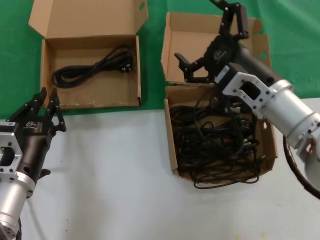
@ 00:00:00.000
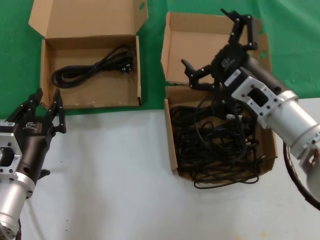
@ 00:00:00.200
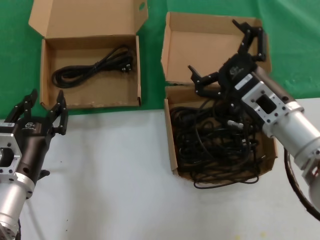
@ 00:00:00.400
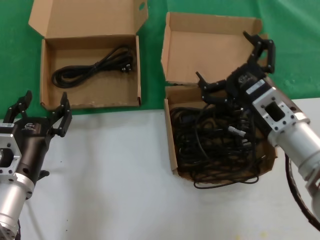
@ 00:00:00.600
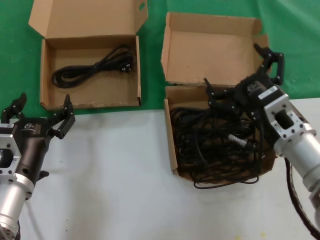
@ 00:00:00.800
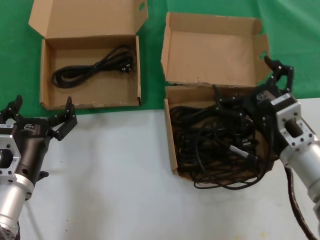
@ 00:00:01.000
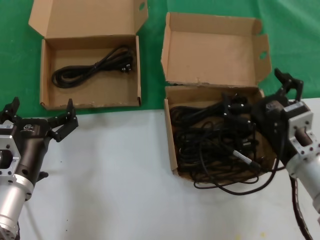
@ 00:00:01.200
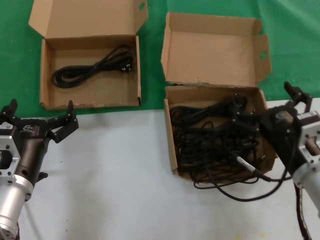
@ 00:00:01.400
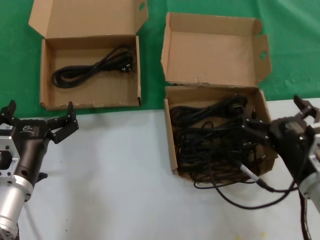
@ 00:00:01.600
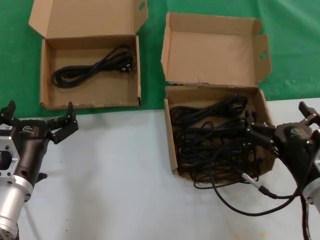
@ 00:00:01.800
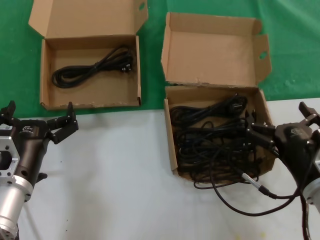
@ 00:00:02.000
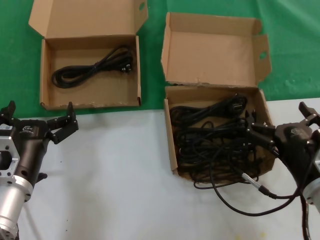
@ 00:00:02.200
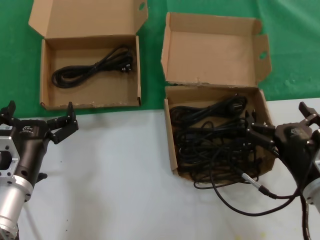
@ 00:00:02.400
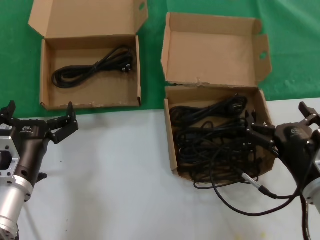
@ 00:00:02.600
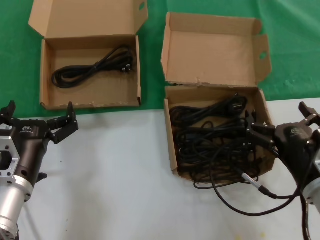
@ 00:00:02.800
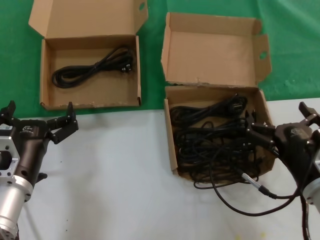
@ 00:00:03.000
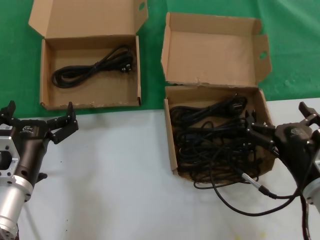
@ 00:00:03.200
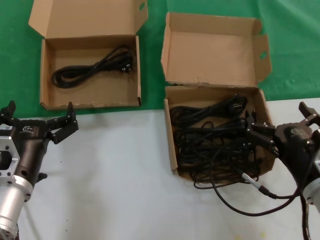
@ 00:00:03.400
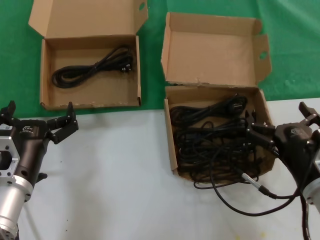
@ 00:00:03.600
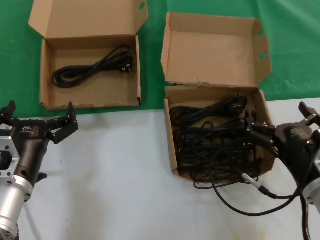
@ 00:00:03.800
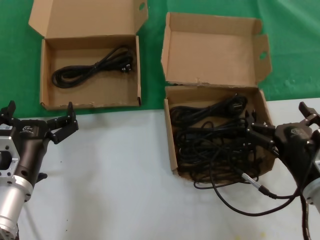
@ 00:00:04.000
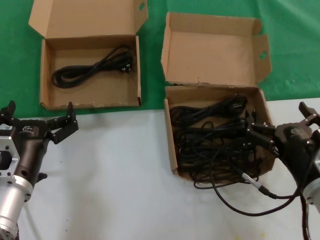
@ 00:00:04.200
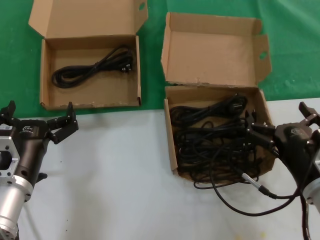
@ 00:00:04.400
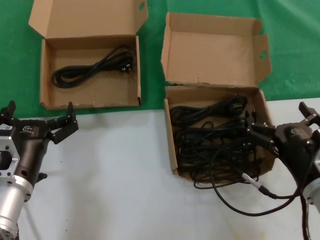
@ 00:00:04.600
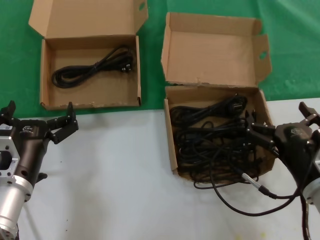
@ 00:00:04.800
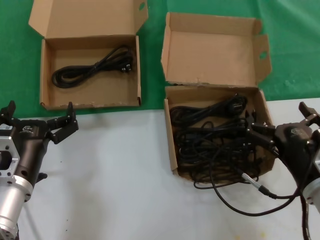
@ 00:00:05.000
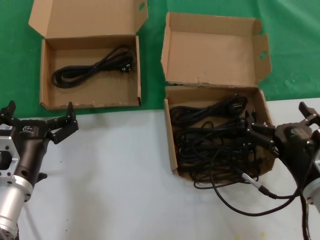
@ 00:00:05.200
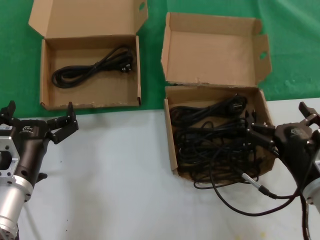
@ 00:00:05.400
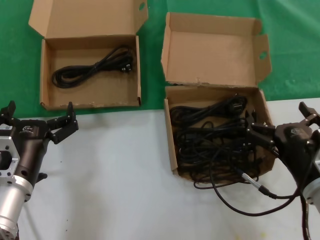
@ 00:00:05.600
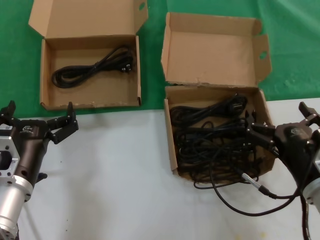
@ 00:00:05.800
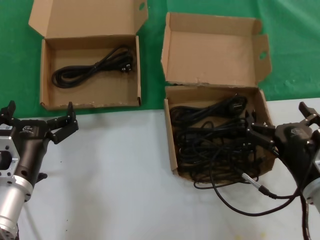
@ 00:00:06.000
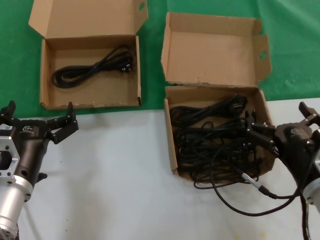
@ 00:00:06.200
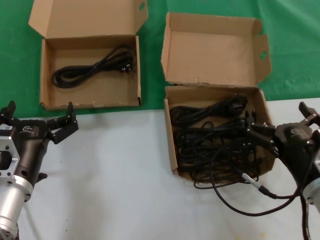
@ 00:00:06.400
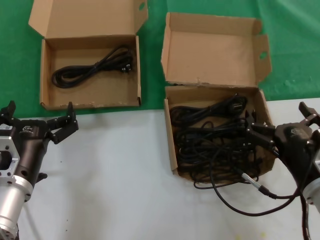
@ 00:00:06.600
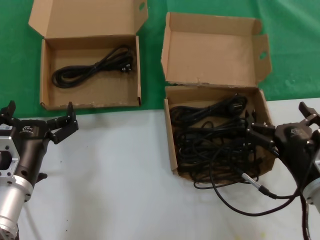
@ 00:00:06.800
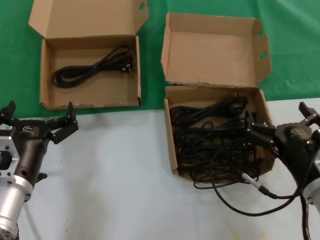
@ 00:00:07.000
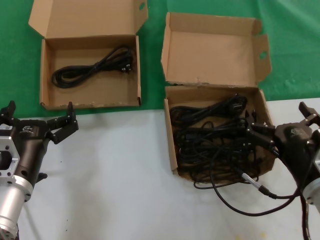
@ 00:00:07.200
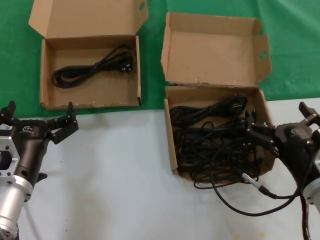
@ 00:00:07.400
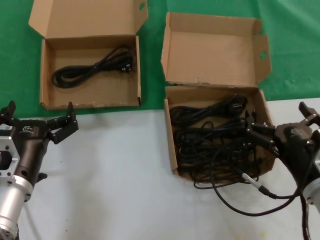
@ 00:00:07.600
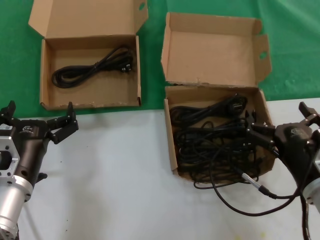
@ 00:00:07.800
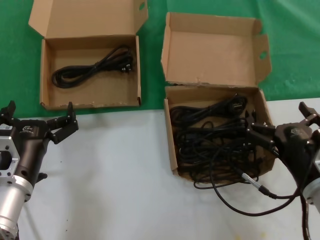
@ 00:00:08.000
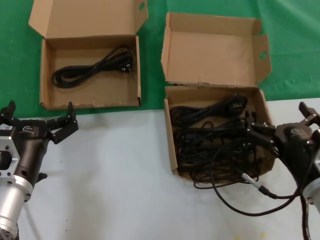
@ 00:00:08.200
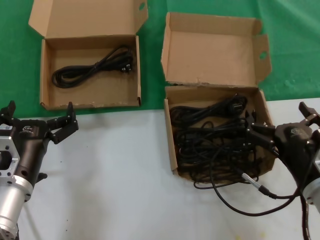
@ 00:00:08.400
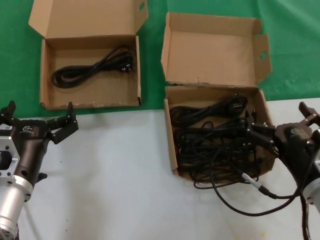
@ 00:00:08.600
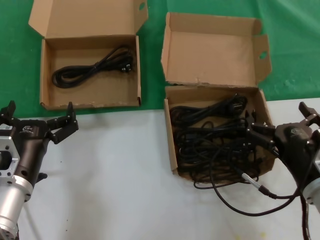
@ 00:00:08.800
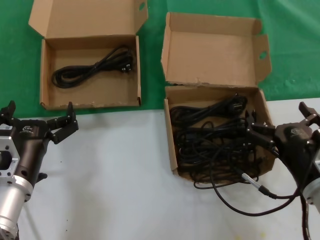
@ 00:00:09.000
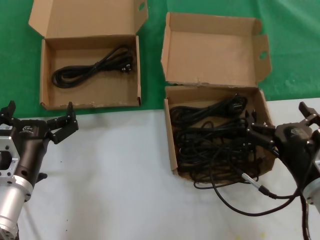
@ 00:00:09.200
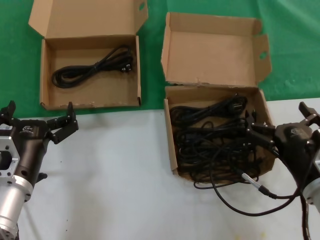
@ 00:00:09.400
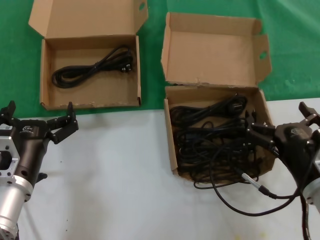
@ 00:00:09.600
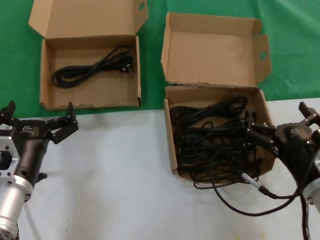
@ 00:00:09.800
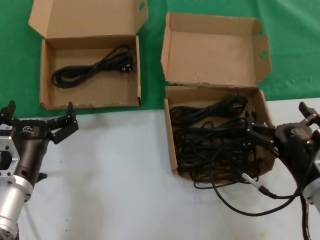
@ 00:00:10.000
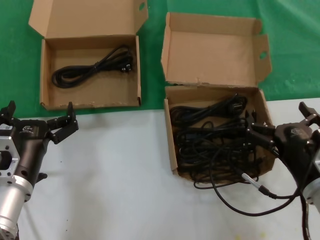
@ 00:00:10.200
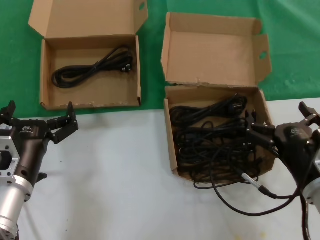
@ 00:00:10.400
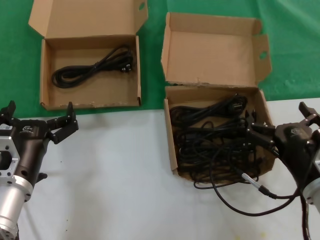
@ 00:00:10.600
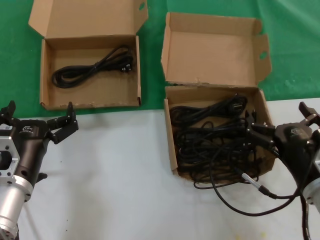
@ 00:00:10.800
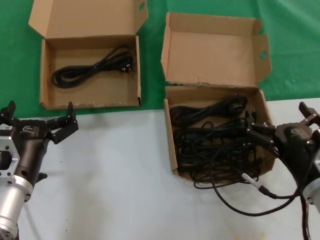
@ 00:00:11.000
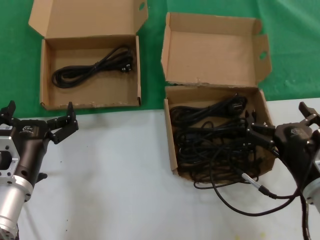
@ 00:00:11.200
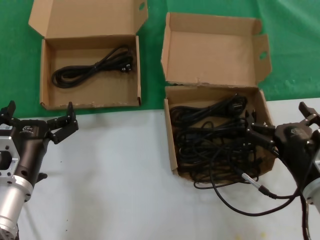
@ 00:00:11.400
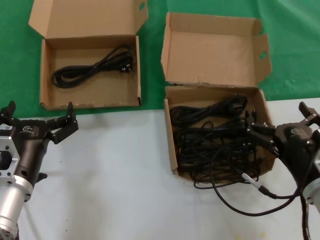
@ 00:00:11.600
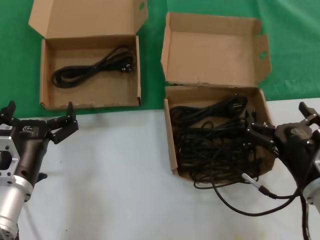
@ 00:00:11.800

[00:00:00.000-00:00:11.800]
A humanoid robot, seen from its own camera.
Task of the whole recording: take the parts from the box containing them and put them into an empty box.
00:00:00.000 to 00:00:01.400: The right hand goes roughly 15 cm downward, backward and to the right.
00:00:01.400 to 00:00:03.000: There are only small adjustments of the hands.
00:00:03.000 to 00:00:11.800: Both hands stay put.
